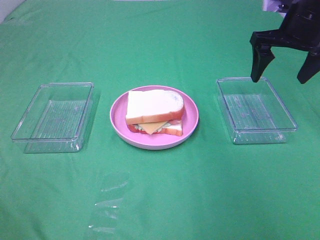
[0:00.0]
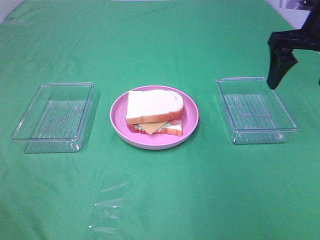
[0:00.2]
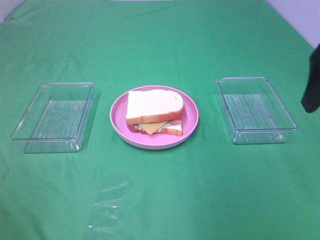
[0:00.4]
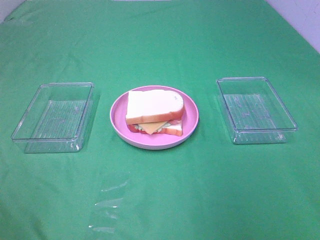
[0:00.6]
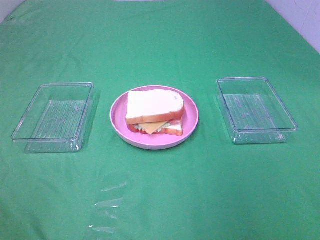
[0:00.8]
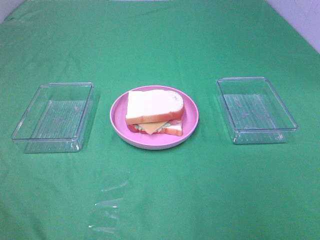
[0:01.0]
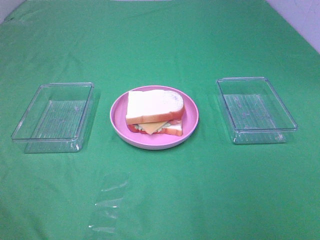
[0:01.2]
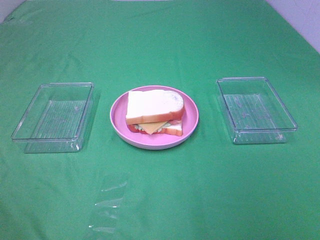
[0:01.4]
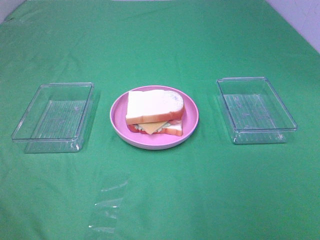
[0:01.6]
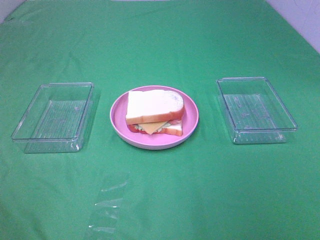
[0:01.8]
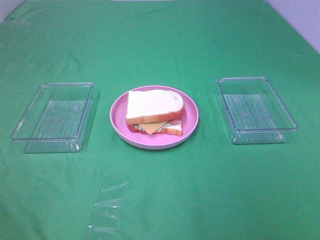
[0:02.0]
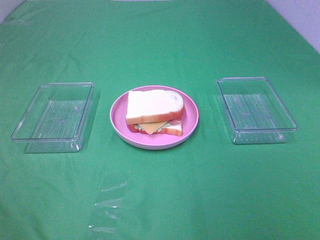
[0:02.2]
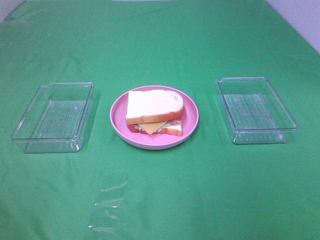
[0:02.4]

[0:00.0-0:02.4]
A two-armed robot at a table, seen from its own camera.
Task of the whole recording: Make sandwiches.
0.0 to 1.2 s: The right gripper goes some 35 cm backward.

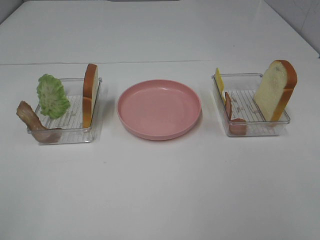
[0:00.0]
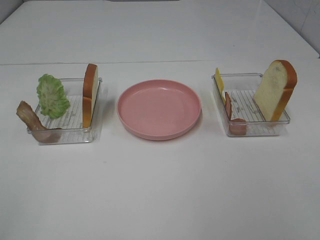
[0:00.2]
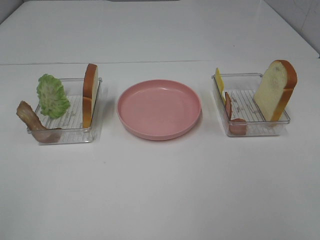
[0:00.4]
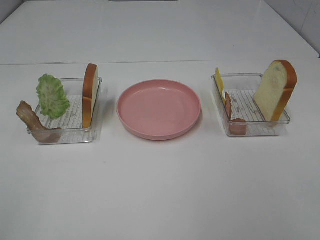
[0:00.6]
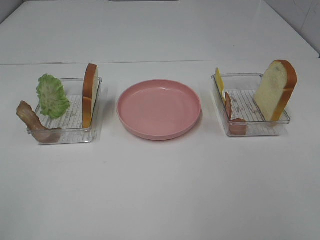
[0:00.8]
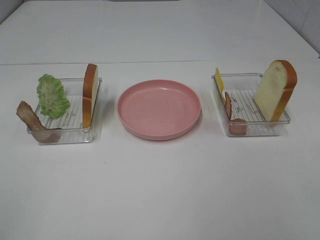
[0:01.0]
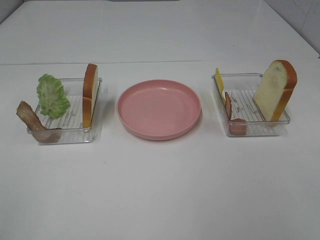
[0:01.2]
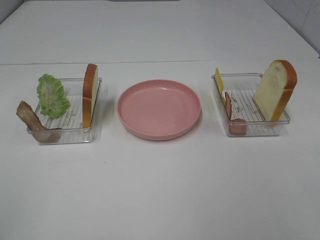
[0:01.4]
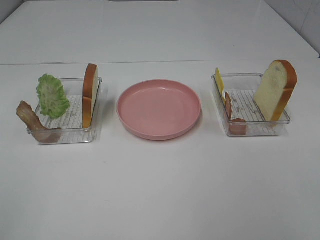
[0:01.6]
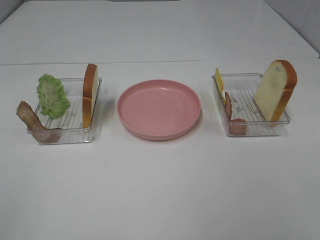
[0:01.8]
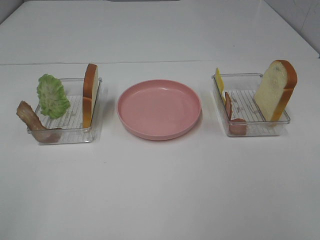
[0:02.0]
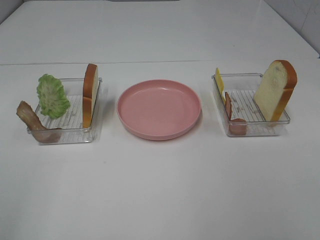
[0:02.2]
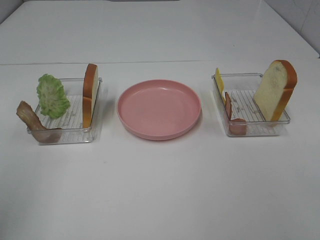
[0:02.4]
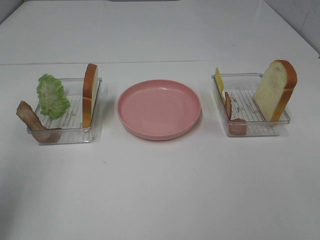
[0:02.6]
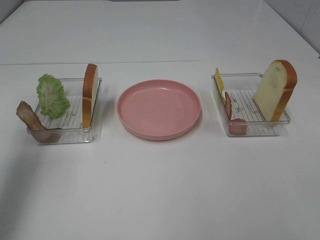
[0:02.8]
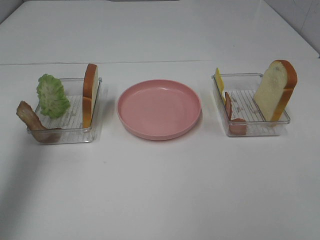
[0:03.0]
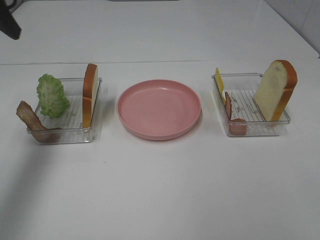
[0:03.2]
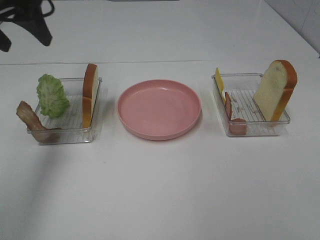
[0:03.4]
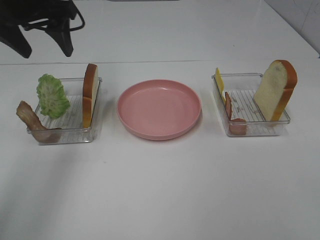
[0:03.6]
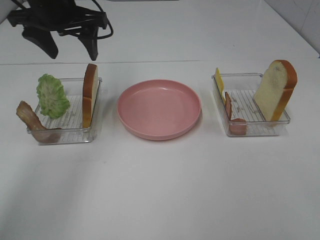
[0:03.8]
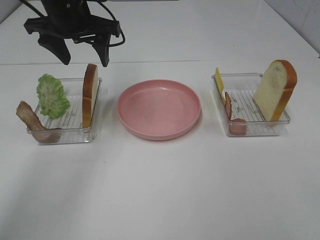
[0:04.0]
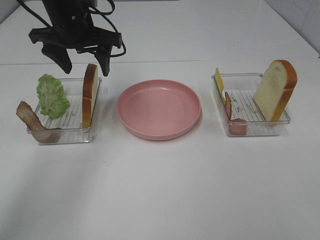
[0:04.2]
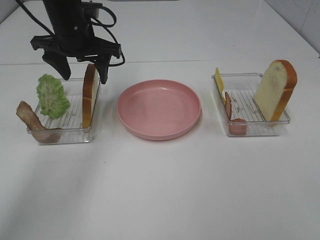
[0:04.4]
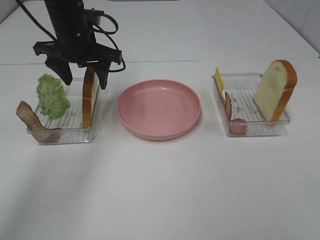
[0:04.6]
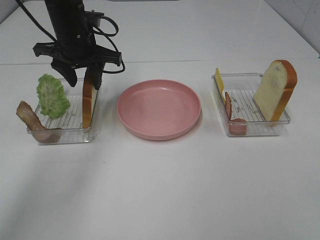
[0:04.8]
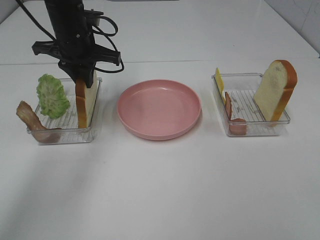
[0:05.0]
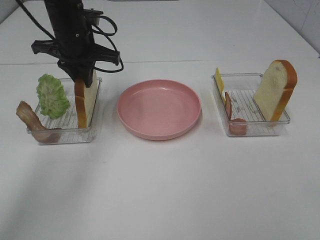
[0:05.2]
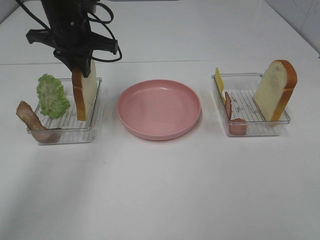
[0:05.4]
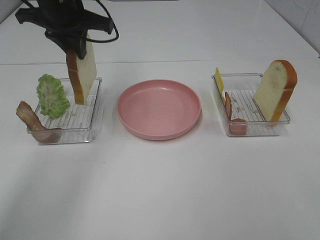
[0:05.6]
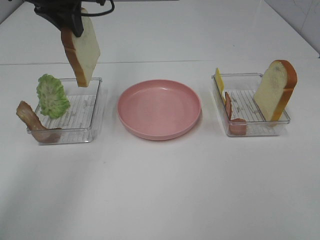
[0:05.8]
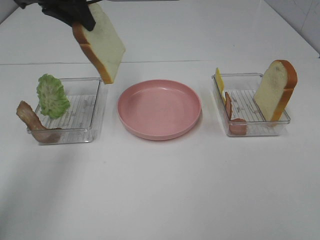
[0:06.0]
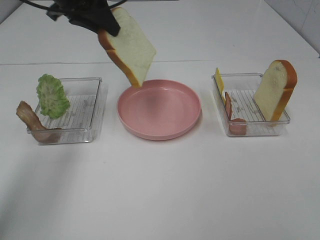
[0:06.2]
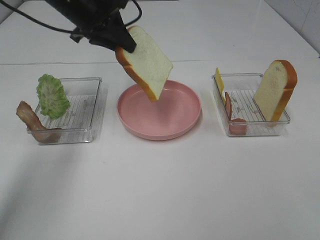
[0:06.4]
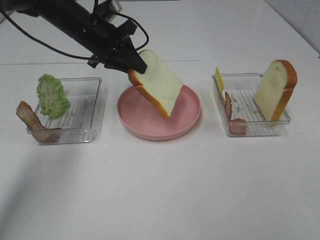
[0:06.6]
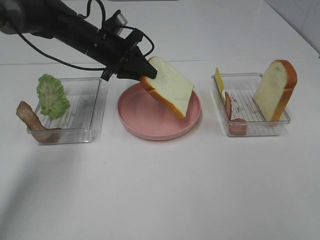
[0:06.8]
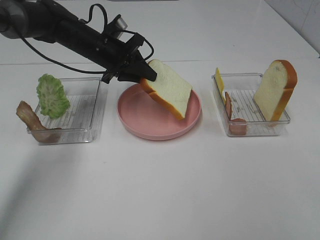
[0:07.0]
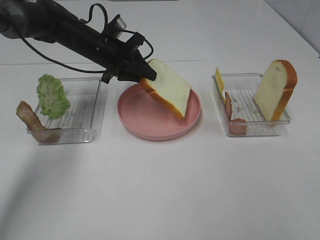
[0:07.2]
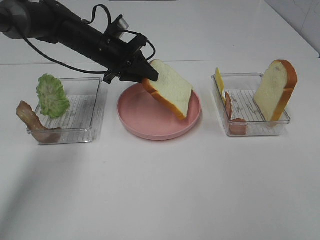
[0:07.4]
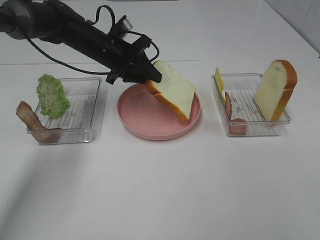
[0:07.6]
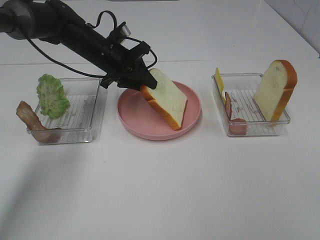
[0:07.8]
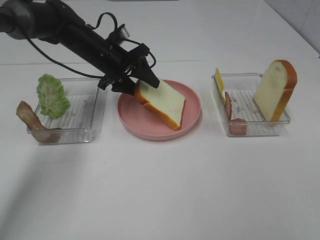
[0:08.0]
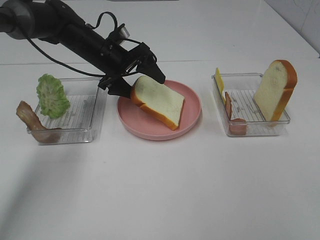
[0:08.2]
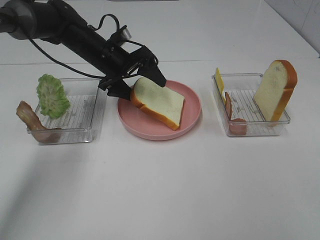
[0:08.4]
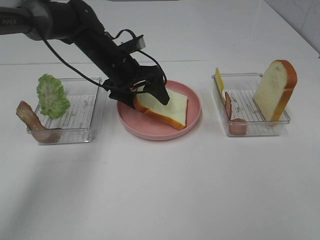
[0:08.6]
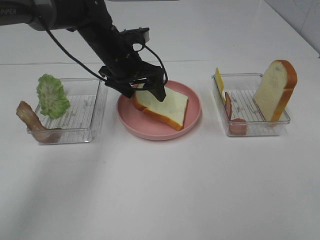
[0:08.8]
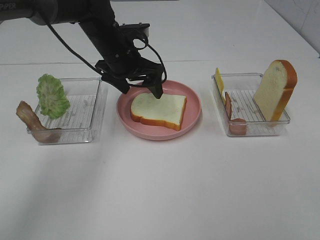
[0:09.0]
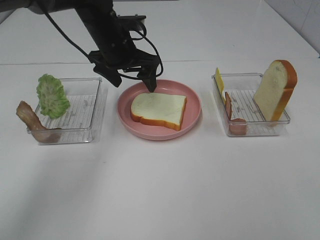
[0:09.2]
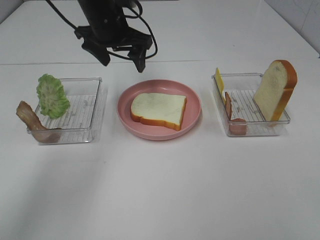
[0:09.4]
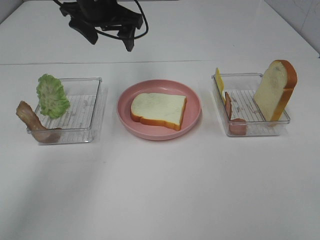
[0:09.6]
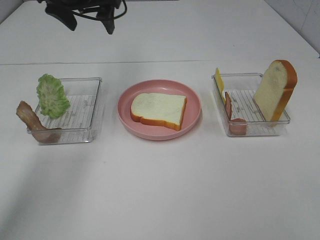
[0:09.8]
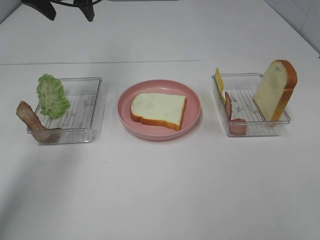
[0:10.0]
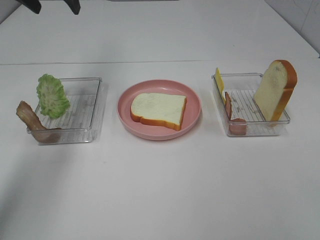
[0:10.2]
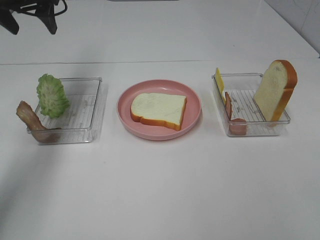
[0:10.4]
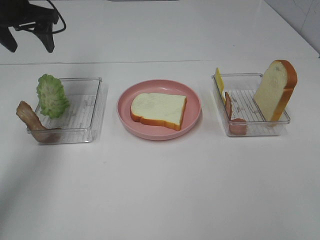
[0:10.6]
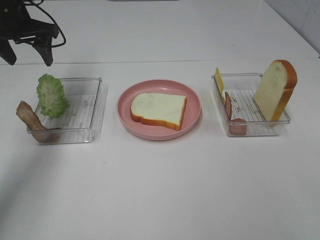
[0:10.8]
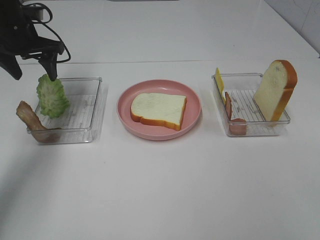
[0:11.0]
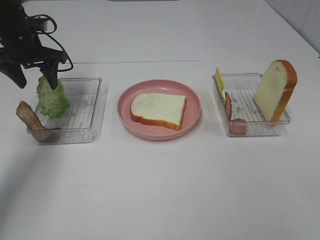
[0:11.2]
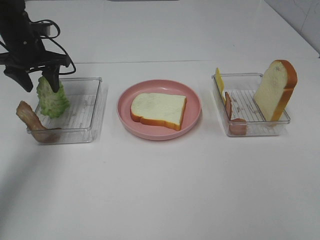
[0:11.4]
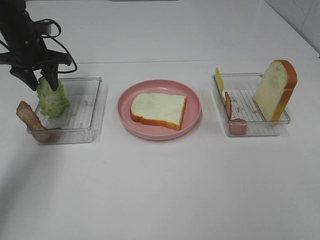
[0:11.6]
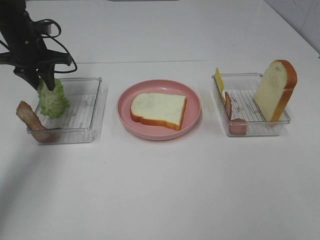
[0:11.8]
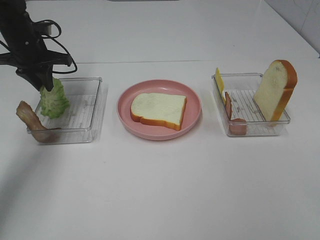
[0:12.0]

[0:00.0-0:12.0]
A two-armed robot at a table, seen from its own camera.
Task of the whole recording: Make sandwiches.
Step, 0.0 to 5.0 s: Left hand:grab the bread slice.
Step, 5.2 to 8.8 s: Left hand:place the bread slice on the plate.
Step, 9.0 to 12.0 s: Left hand:grab the lettuce slice.
0.0 to 1.6 s: Both grippers stay put.
1.6 to 3.0 s: The left gripper is displaced forward by approximately 30 cm.
3.0 to 4.4 s: The left gripper is displaced to the right, forward and downward by about 25 cm.
4.4 to 6.0 s: The left gripper shifts some 10 cm upward, and closes up.
6.0 to 7.6 s: The left gripper goes about 15 cm downward.
7.6 to 9.0 s: The left gripper opens.
9.0 to 10.4 s: The left gripper goes roughly 20 cm to the left and upward.
10.4 to 12.0 s: The left gripper moves downward, approximately 10 cm, and closes up.

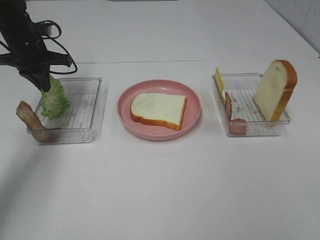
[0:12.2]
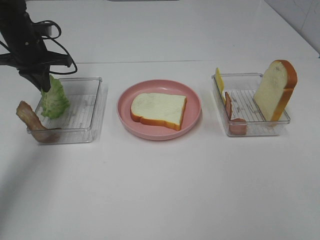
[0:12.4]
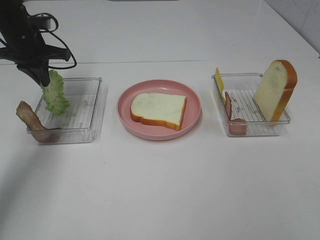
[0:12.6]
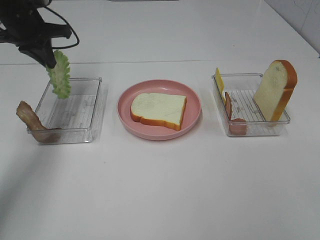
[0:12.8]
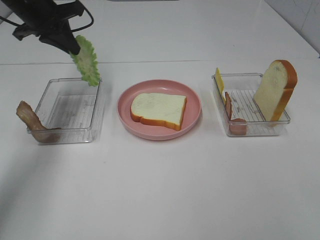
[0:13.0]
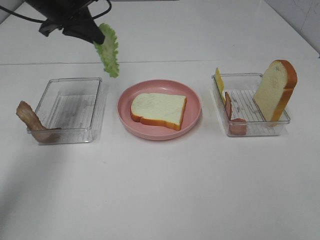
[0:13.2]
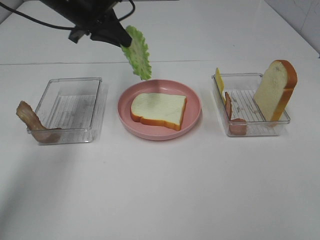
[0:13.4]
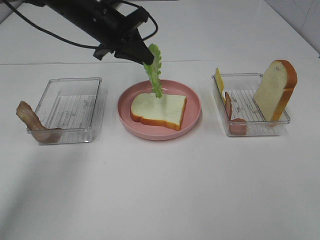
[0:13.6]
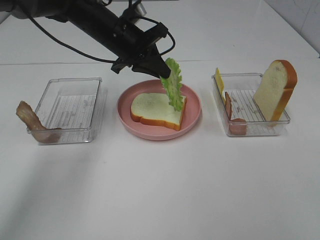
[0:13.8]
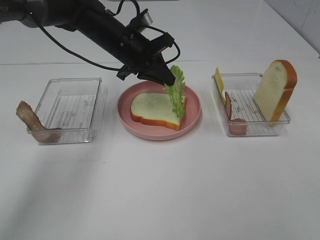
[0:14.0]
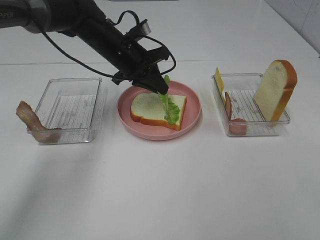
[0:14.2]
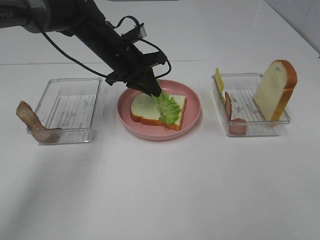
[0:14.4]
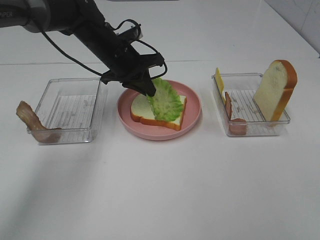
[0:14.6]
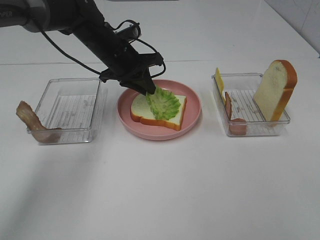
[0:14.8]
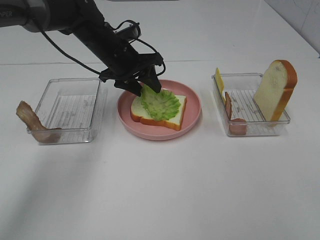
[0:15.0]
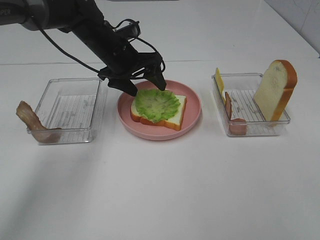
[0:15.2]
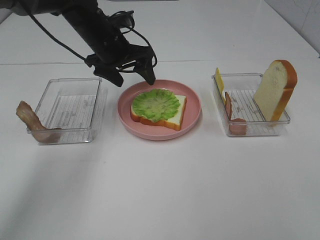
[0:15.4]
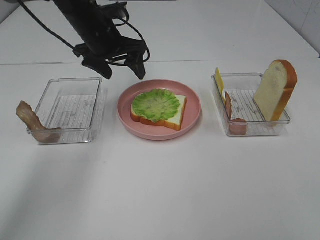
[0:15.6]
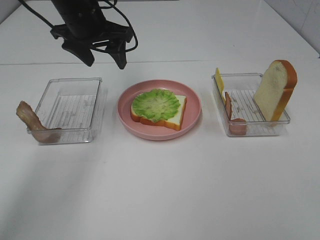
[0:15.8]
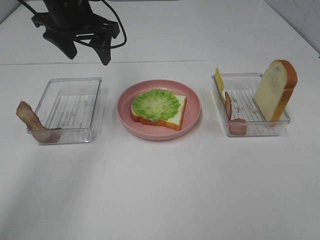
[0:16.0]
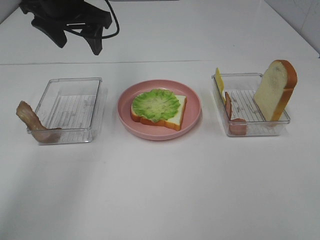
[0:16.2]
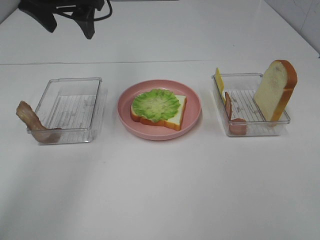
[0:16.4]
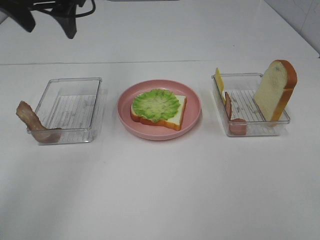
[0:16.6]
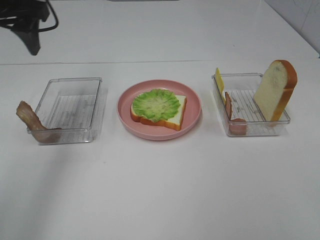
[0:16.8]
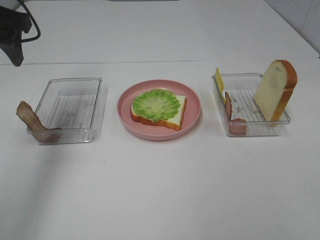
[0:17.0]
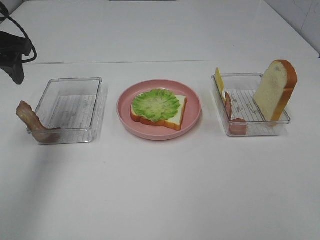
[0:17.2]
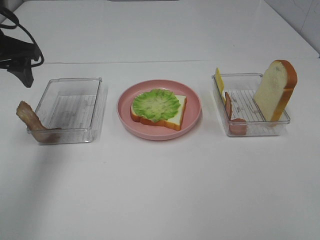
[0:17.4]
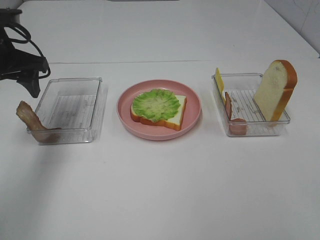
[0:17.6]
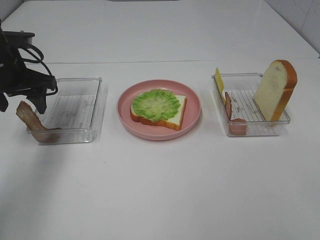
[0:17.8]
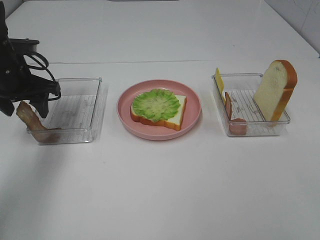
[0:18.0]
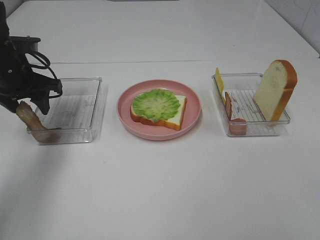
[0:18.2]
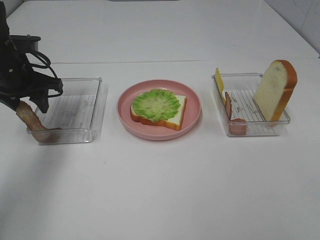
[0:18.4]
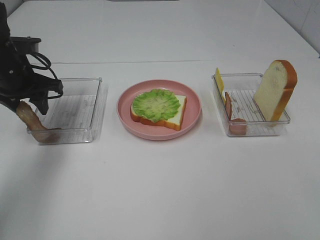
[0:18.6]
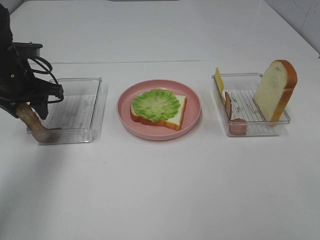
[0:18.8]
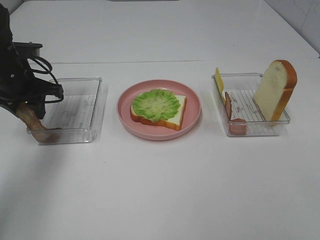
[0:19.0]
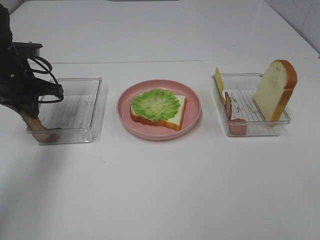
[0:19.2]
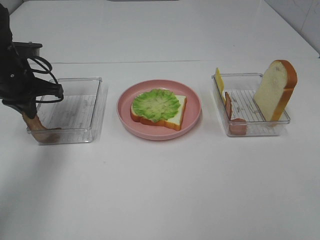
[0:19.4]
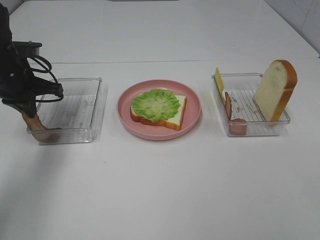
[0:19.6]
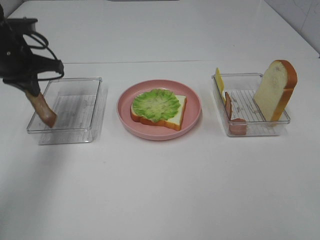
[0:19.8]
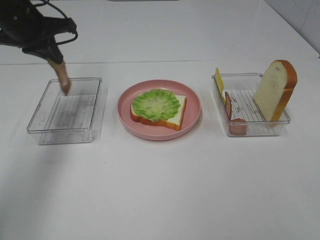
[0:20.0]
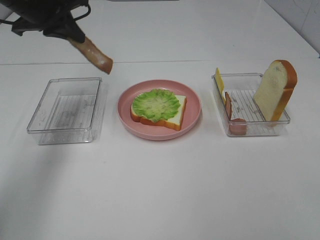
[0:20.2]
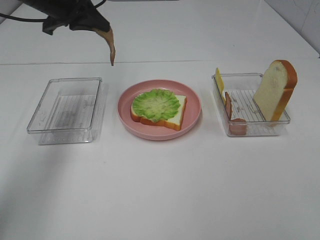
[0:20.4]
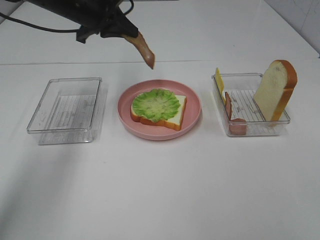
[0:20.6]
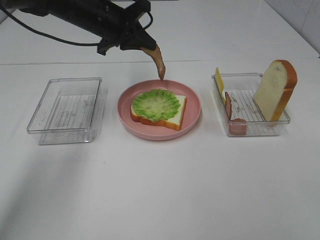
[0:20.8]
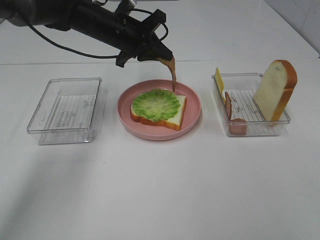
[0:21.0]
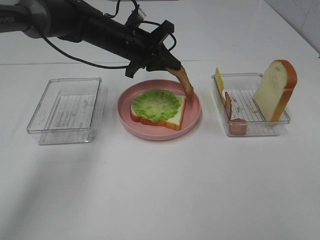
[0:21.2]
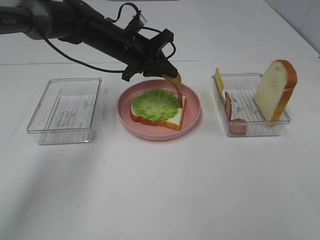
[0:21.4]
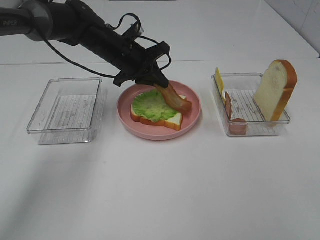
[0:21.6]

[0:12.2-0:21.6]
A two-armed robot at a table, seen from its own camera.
Task of the whole recording: Make sandwiches.
Step, 12.2 to 15.2 s: Left hand:place the lettuce slice on the bread slice.
Step, 15.4 to 19.4 s: Left hand:grab the bacon.
12.2 to 13.8 s: The left gripper goes roughly 20 cm to the right.
13.8 to 15.4 s: The left gripper opens its fingers.
15.4 to 17.0 s: The left gripper moves to the left, backward and upward, roughly 20 cm.
17.0 to 18.4 s: The left gripper travels downward by approximately 15 cm.
18.4 to 20.0 s: The left gripper heads upward, covering approximately 10 cm, and closes up.
20.0 to 21.6 s: The left gripper is displaced to the right and downward by approximately 20 cm.
